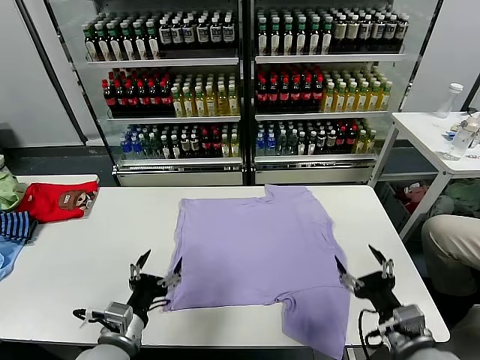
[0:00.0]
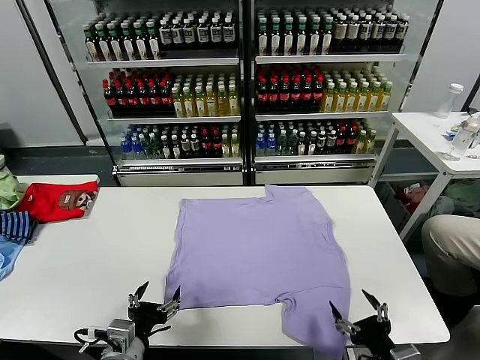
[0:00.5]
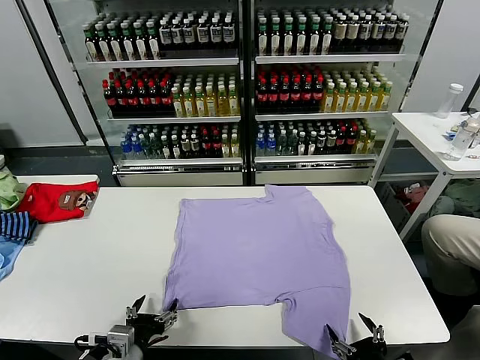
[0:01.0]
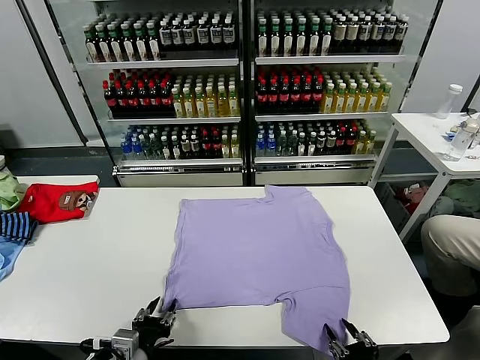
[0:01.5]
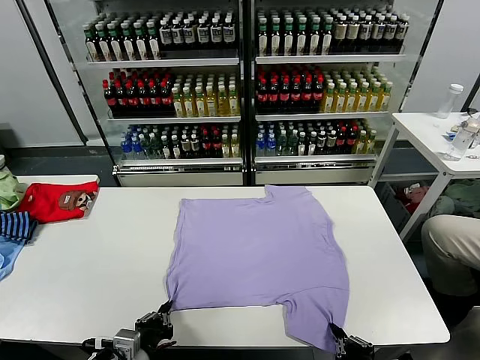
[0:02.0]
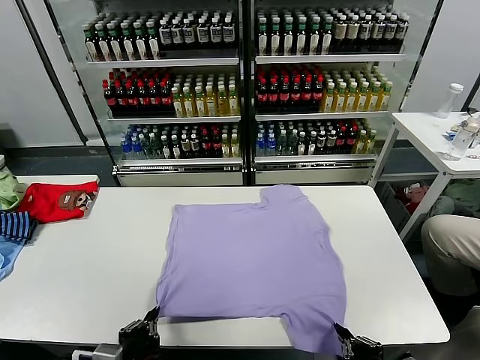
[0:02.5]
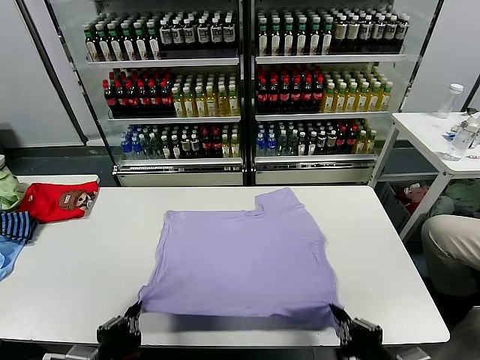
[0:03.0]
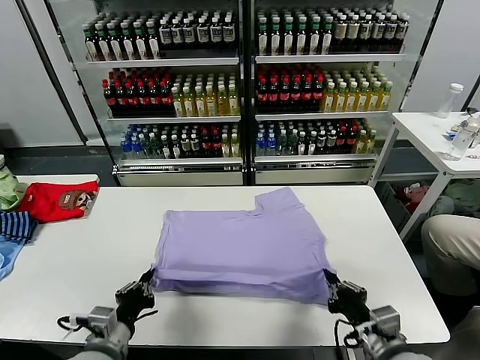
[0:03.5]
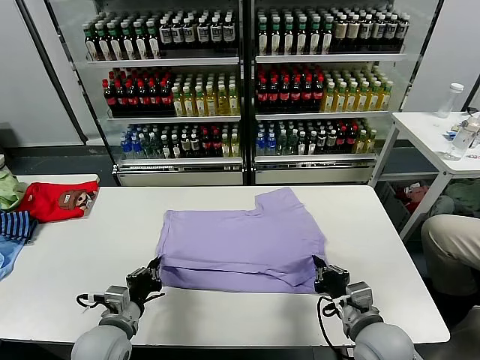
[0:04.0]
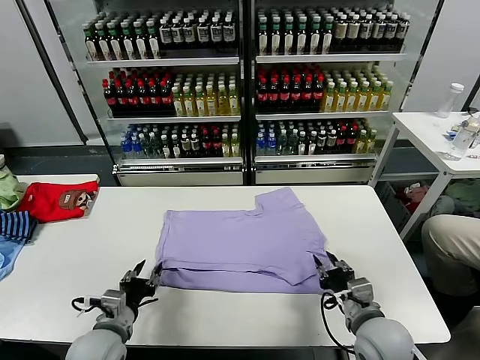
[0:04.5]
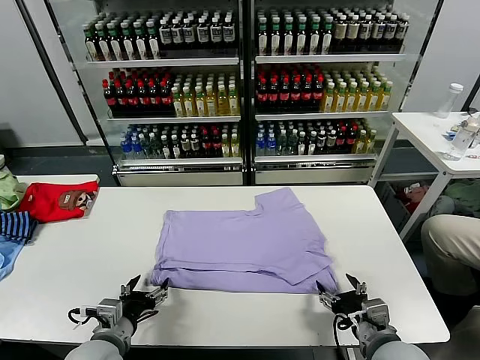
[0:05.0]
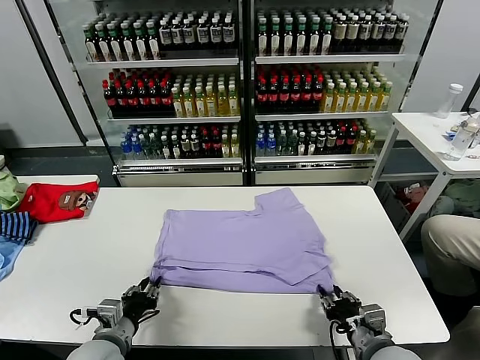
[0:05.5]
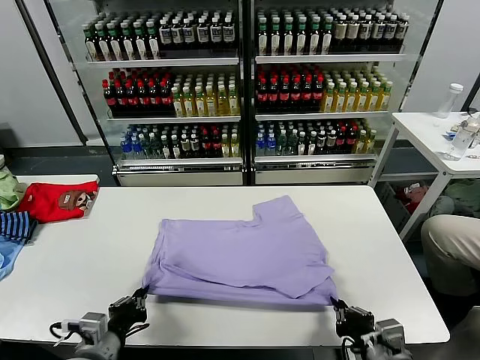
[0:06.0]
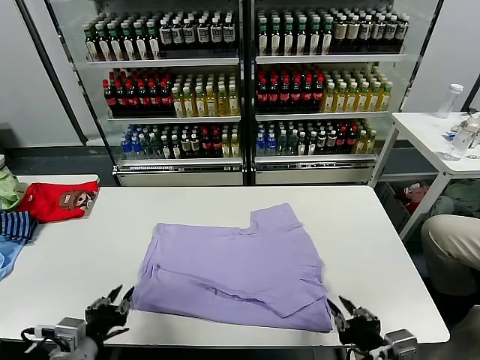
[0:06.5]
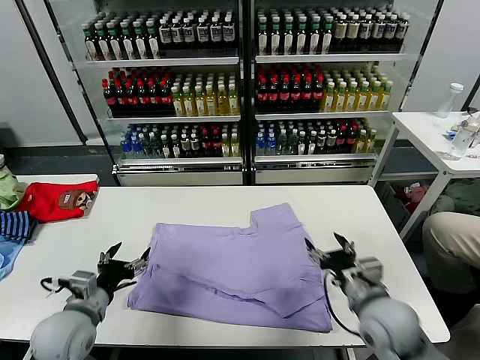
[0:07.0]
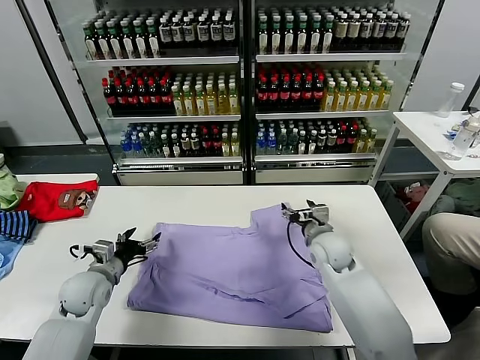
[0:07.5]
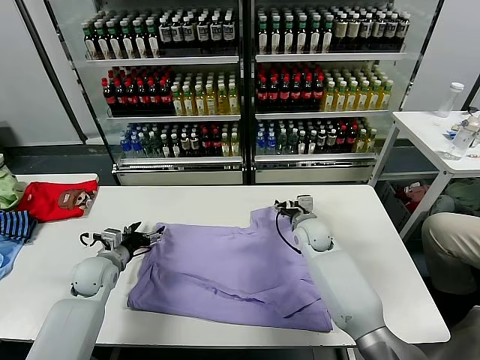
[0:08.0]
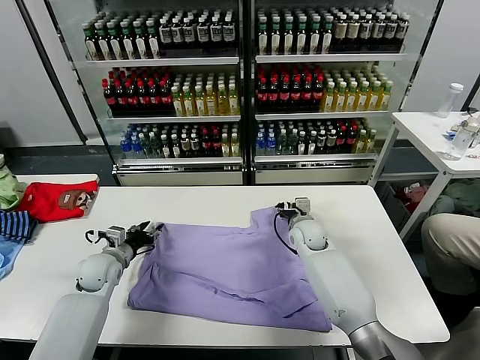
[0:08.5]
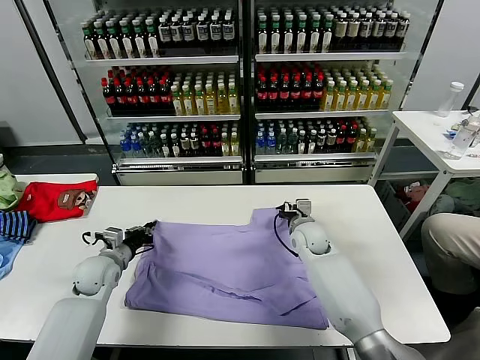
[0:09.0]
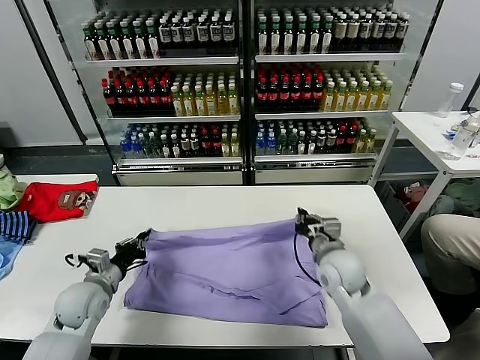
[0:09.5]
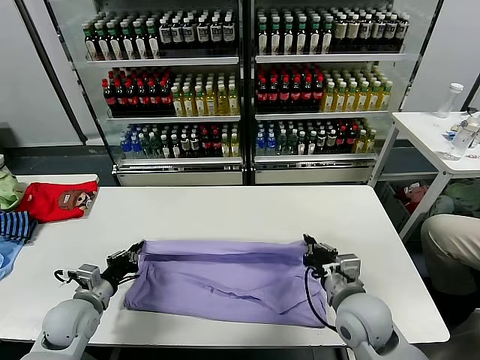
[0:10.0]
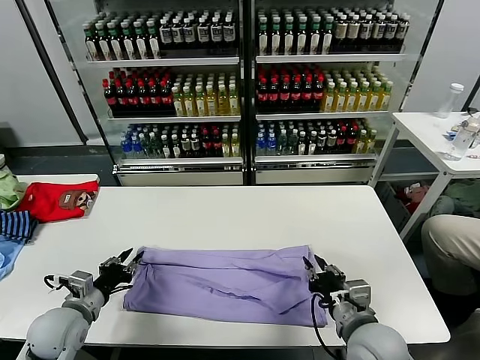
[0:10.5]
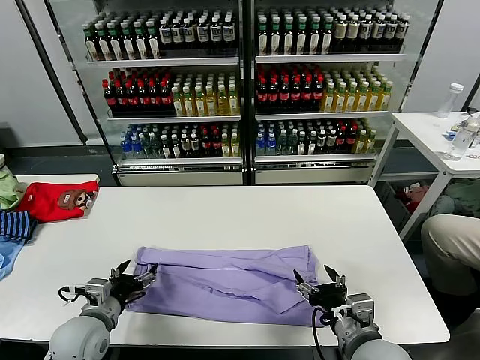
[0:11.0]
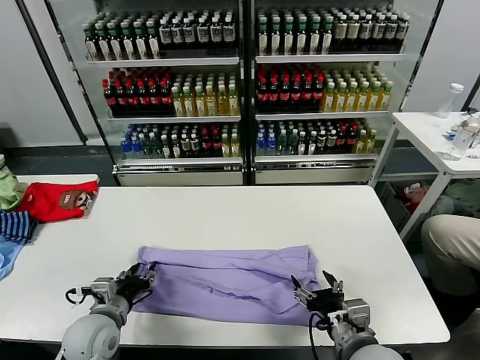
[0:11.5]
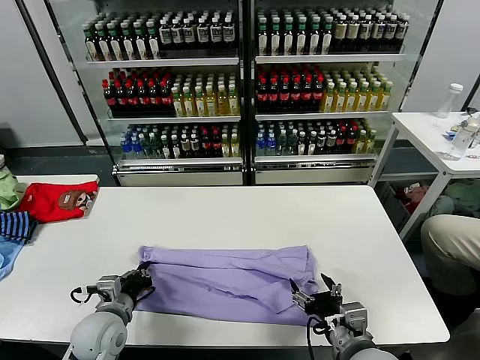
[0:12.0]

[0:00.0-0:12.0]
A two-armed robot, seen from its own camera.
Task of the whole recording: fold and organize the clothes.
Step, 0:00.0 to 0:01.5: use both grippers simultaneously to clamp the lower edge of the clothing fabric.
Step, 0:02.0 to 0:04.5: use both grippers to drag the lower edge of the fabric forward and fold it over the upper edge.
Step, 0:05.0 to 0:06.5: Drag the clothes downward with both gripper.
Step, 0:07.0 to 0:08.5: use both grippers simultaneously to clamp the upper edge of the clothing fabric.
Step, 0:09.5 to 0:10.5: use both grippers to drag the upper edge of the fabric backward and fold it over the lower edge.
Step, 0:11.0 to 0:11.5: use the left gripper to clamp the left edge of the fabric.
0:02.0 to 0:04.0: Both grippers travel together forward, about 15 cm.
0:04.0 to 0:06.0: Both grippers travel together backward, approximately 10 cm. The right gripper opens and closes again; the left gripper opens, then closes once more.
0:06.0 to 0:08.0: The right gripper travels forward by approximately 40 cm, and opens; the left gripper goes roughly 25 cm forward, and opens up.
0:08.0 to 0:10.0: The left gripper moves backward, roughly 10 cm, and closes, while the right gripper heads backward, covering approximately 25 cm, and closes its fingers.
0:10.0 to 0:12.0: The right gripper moves backward, some 10 cm, and opens. The left gripper shifts some 10 cm to the right, and opens, then closes once more.

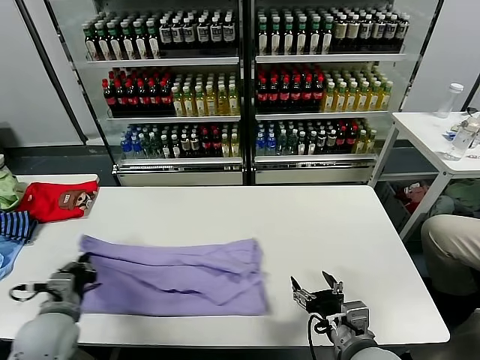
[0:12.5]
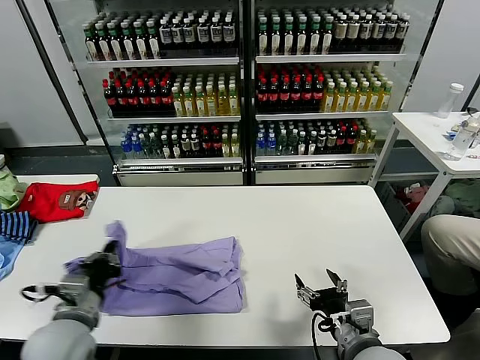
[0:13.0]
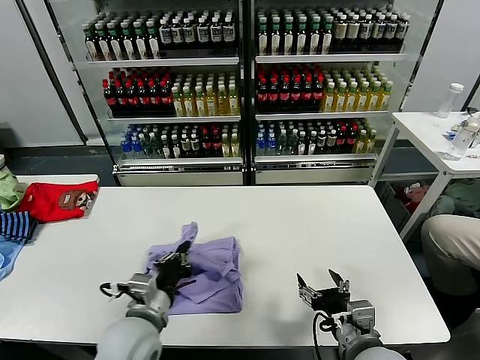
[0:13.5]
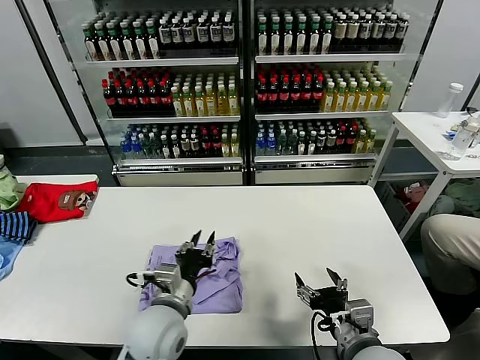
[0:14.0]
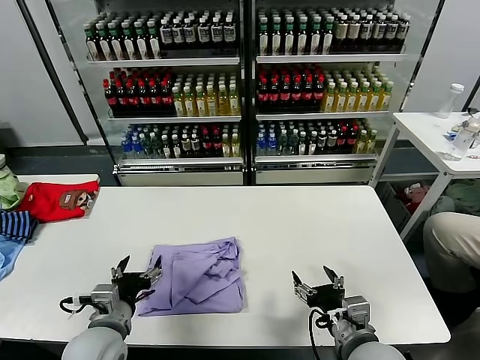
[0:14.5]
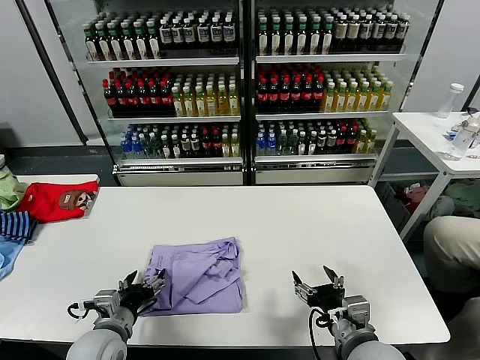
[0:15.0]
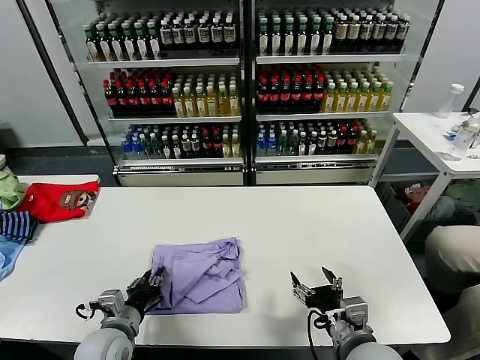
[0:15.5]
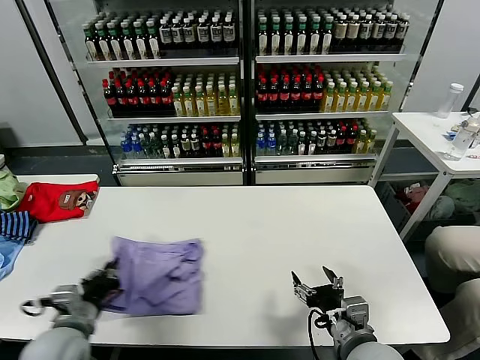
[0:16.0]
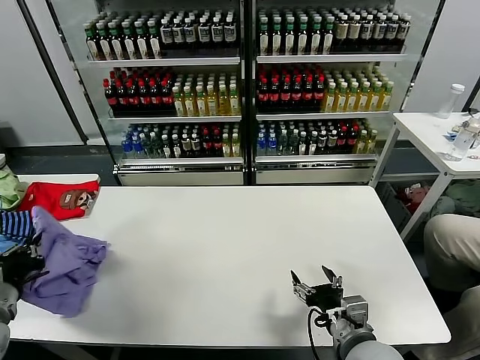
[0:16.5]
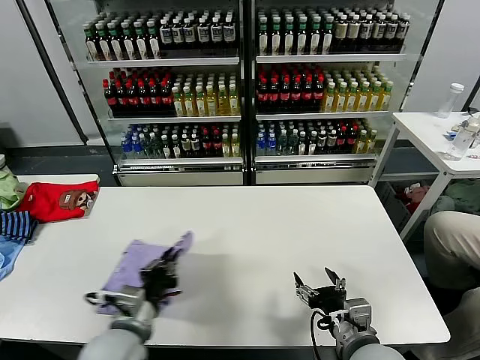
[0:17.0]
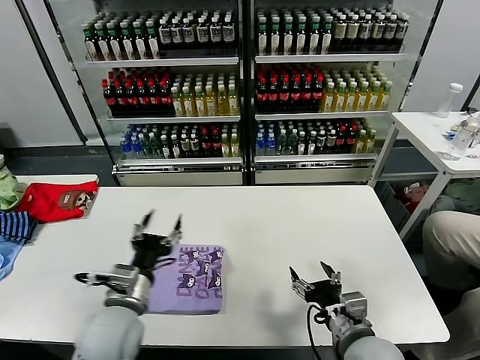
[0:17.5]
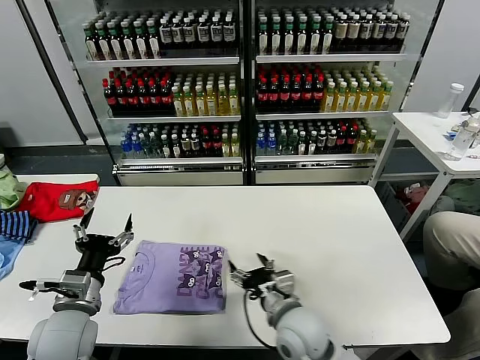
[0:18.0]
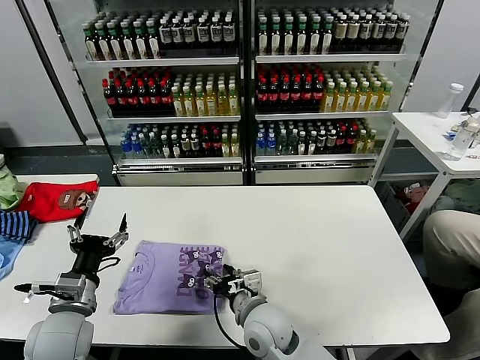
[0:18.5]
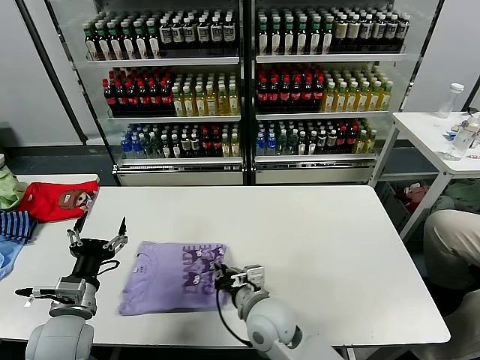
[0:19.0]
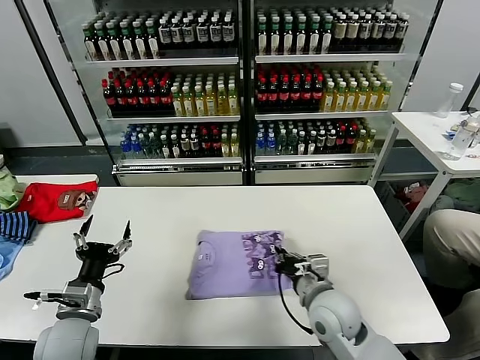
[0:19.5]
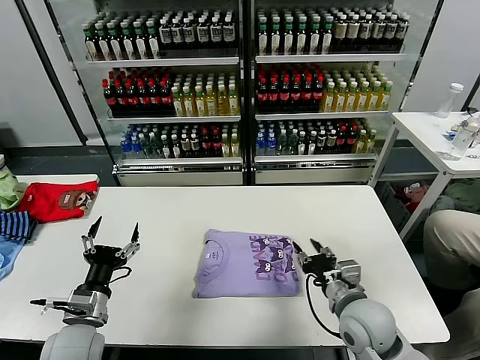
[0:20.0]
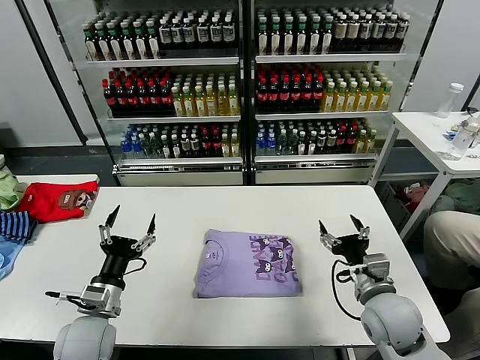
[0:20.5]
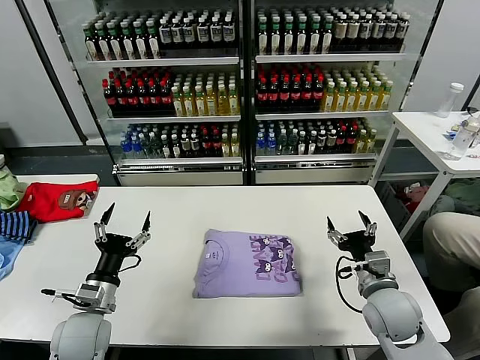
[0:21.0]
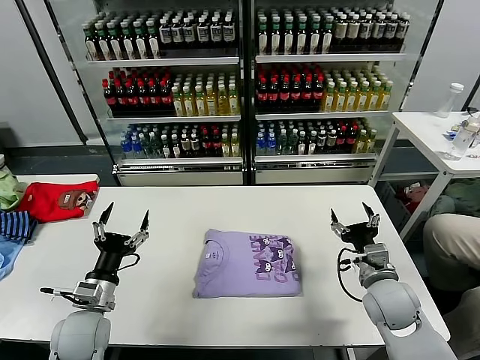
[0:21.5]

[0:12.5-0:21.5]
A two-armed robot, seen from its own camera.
Task of the whole recording: fold and organize the clothes.
Step, 0:12.5 to 0:14.0: use the left gripper to drag the left edge of the fabric to the left and folds it over the right edge.
Step, 0:14.5 to 0:17.0: Flip the folded clothes over with left gripper.
Step, 0:17.5 to 0:20.0: Drag the clothes to the center of the table.
0:12.5 to 0:14.5: The left gripper moves to the right, roughly 10 cm, and opens up.
0:14.5 to 0:17.0: The left gripper travels to the left and back again, some 15 cm each way, and closes its fingers.
0:17.0 to 0:19.5: The right gripper heads forward, covering roughly 10 cm, travels to the left and back again, roughly 20 cm each way, and closes up. Meanwhile the left gripper shifts approximately 10 cm to the left, and opens.
0:19.5 to 0:21.5: The right gripper goes about 10 cm to the right, and opens up.
